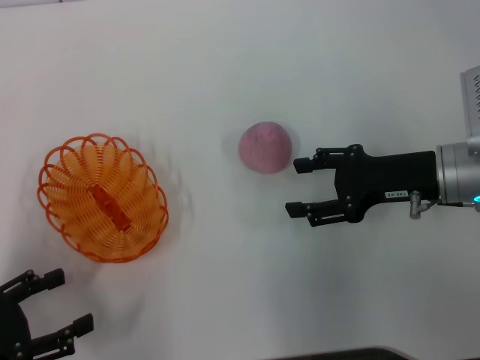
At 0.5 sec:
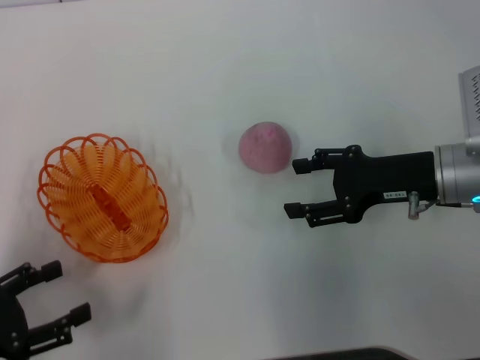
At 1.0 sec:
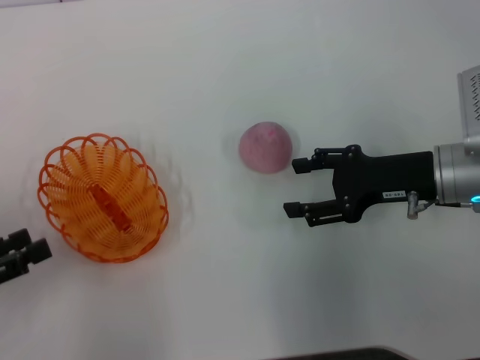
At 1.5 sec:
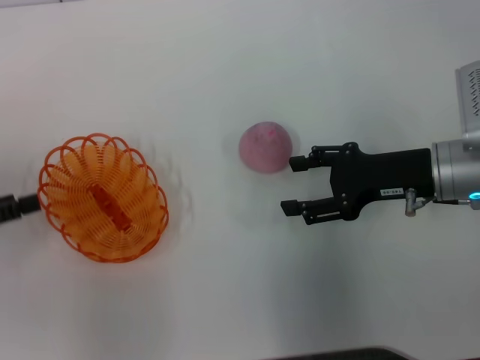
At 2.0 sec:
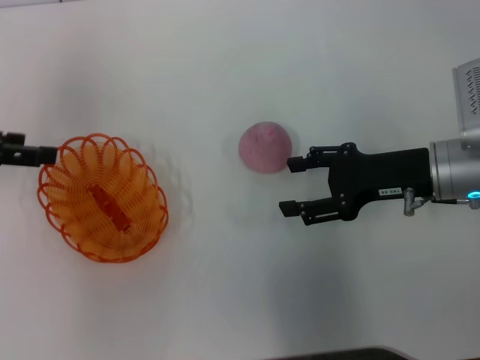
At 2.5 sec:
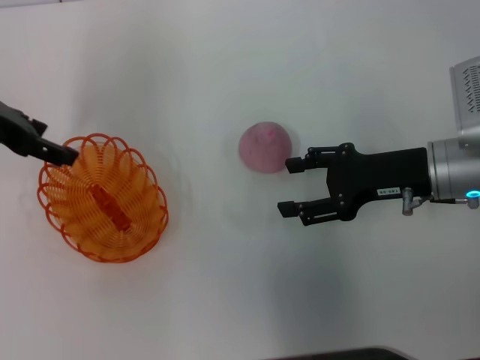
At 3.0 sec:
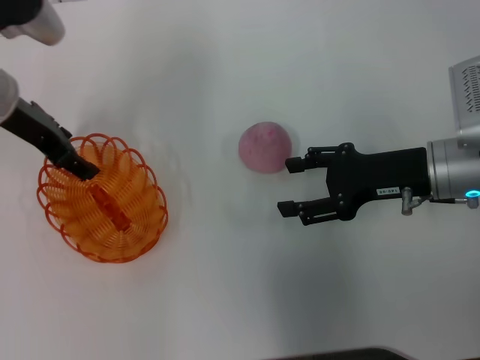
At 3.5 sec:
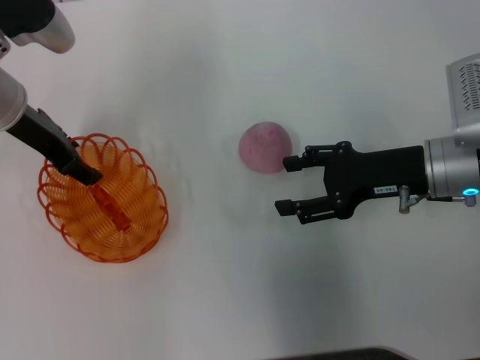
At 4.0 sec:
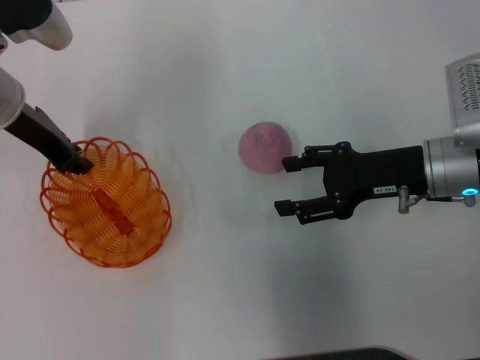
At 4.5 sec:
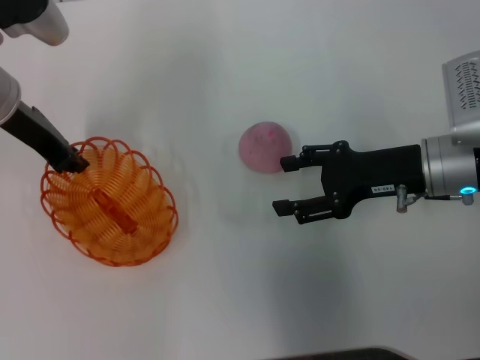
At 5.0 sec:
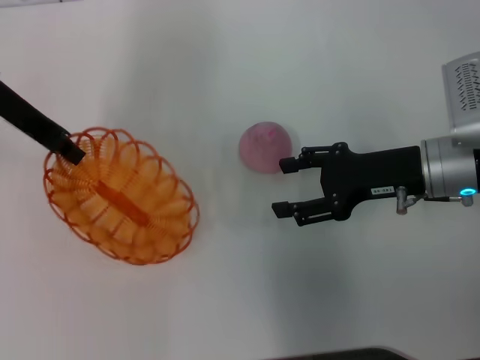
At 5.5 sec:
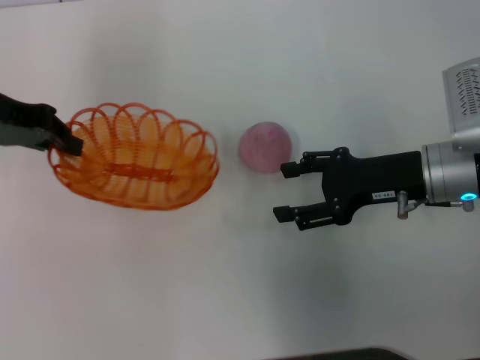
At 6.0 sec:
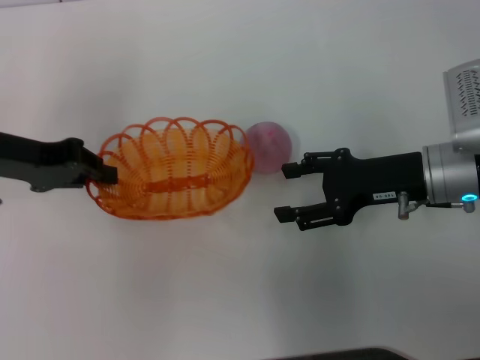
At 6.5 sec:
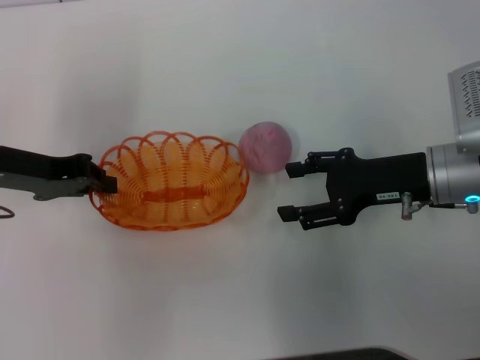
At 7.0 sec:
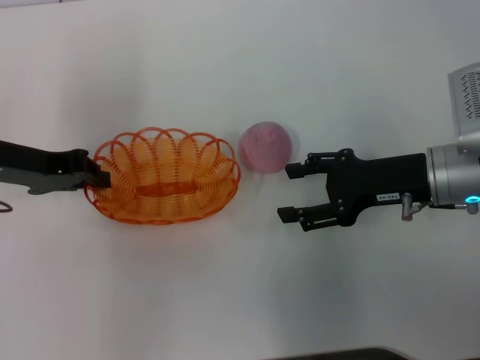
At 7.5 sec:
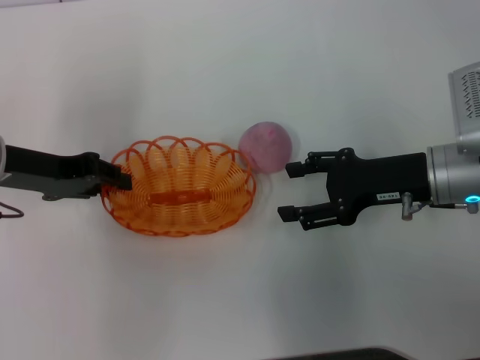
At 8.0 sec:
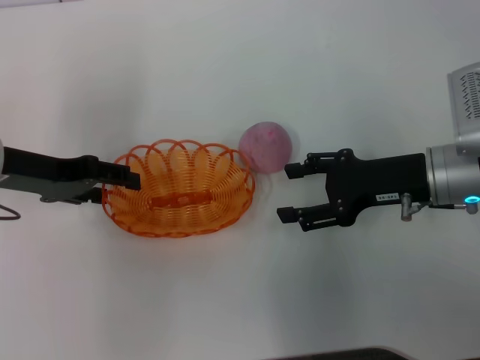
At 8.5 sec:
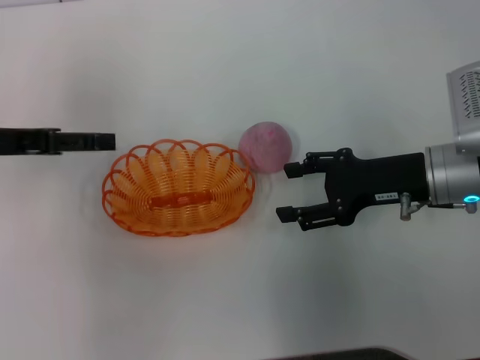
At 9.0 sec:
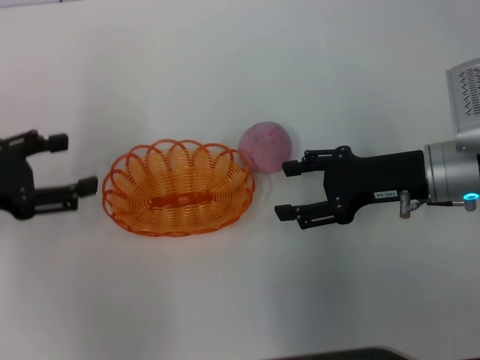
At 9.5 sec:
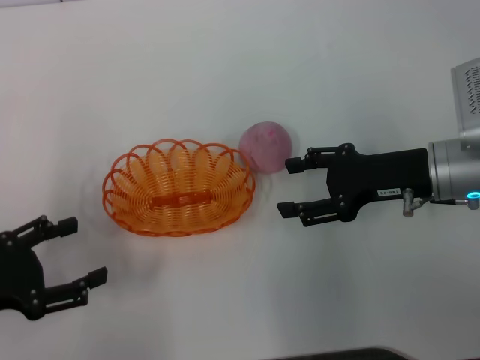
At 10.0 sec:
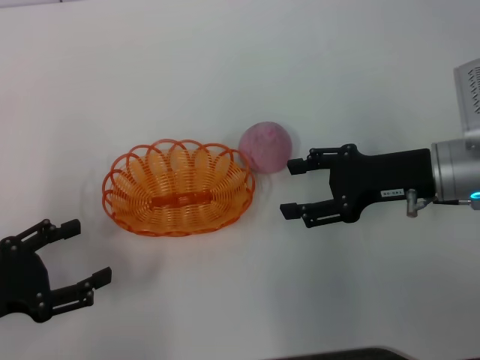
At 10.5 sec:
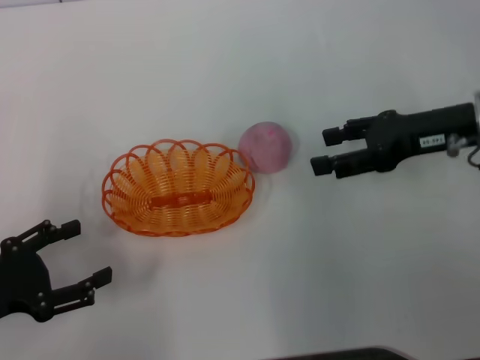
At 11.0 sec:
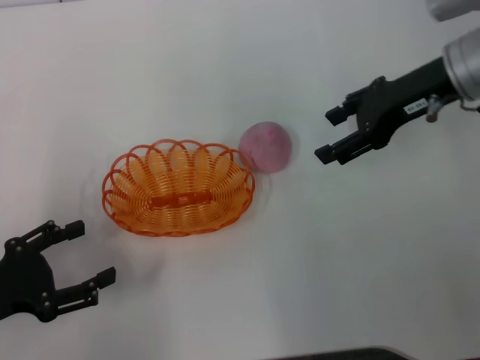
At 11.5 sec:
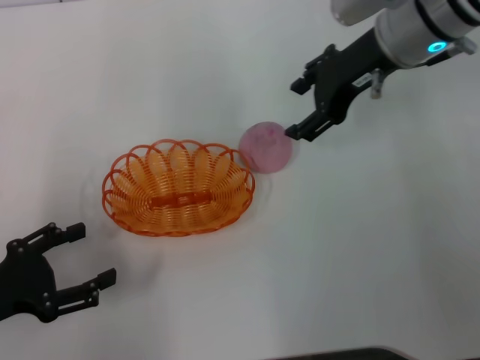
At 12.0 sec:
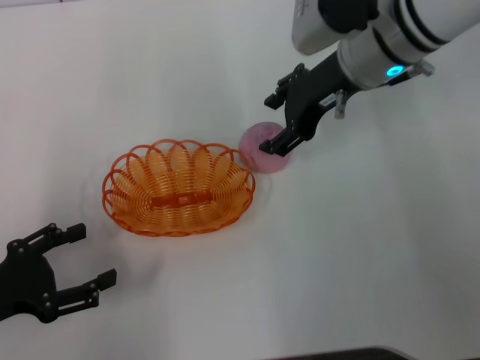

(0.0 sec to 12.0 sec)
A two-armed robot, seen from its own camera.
Step, 0.0 sec - 5.0 sec: Pick up the basket with the left gripper.
Step, 5.5 sec - 9.0 sec: Place the basket in the center of view with the left gripper.
0.0 sec - 2.0 sec: The left gripper moves forward and upward, roughly 20 cm.
2.0 sec - 4.0 sec: The left gripper travels to the right and forward by some 15 cm, and closes.
4.0 sec - 6.0 sec: The left gripper is displaced to the left and backward by roughly 5 cm.
6.0 sec - 8.0 sec: The left gripper opens its fingers.
8.0 sec - 10.0 sec: The left gripper moves backward, to the left and downward, roughly 15 cm, and opens up.
10.0 sec - 12.0 sec: The right gripper heads forward, to the left and upward, covering about 15 cm.

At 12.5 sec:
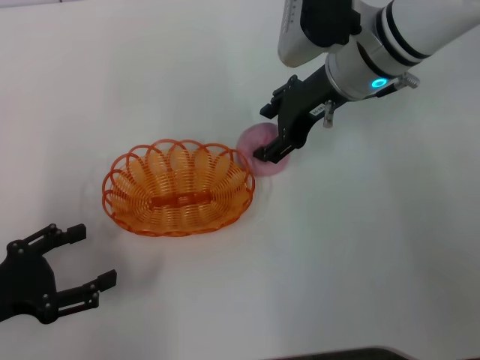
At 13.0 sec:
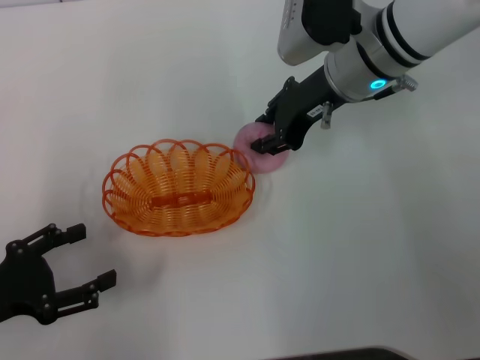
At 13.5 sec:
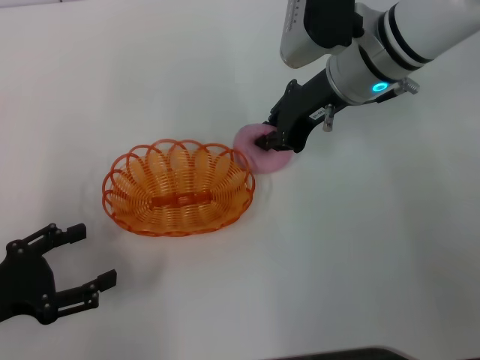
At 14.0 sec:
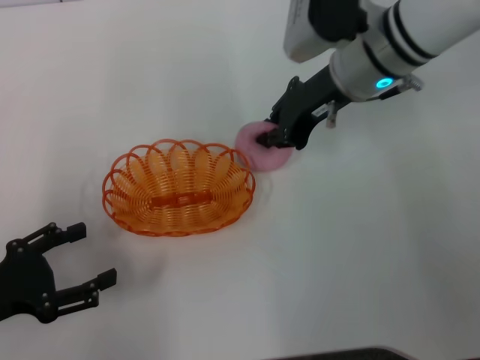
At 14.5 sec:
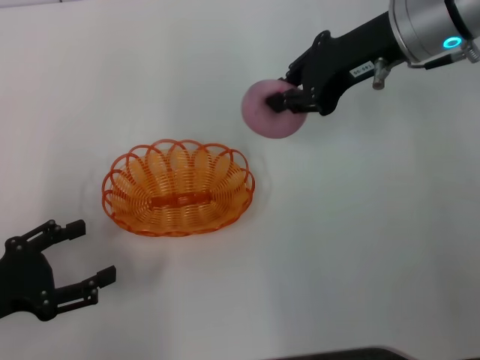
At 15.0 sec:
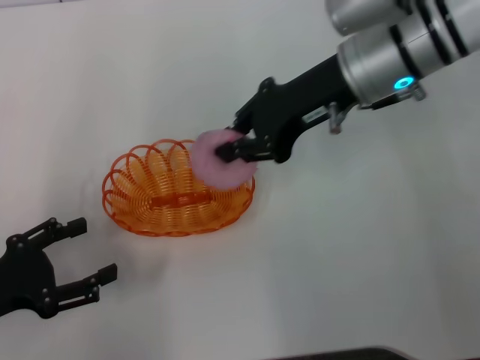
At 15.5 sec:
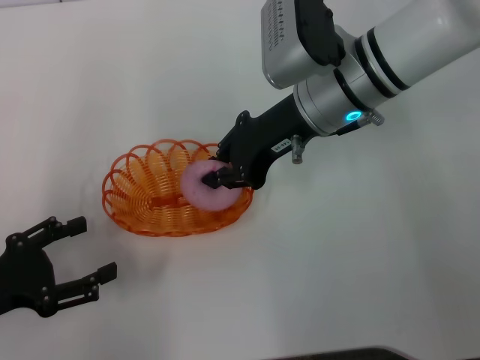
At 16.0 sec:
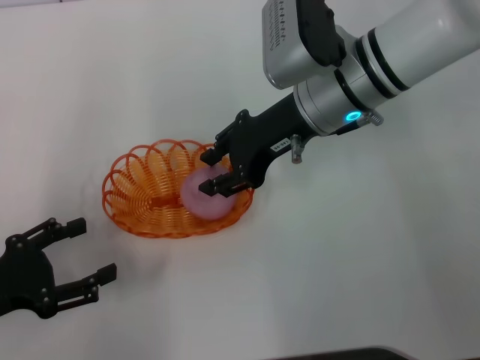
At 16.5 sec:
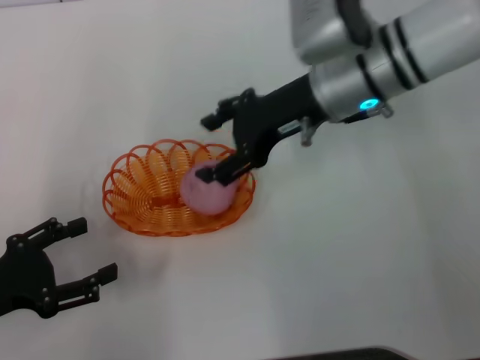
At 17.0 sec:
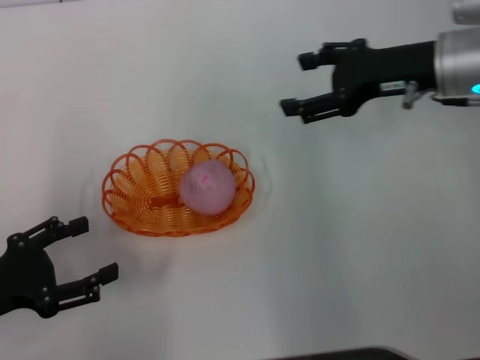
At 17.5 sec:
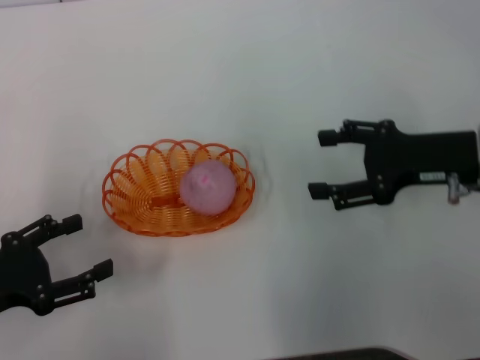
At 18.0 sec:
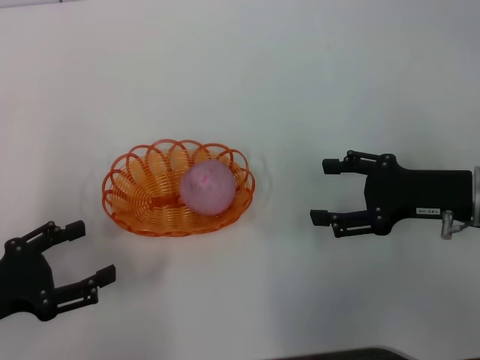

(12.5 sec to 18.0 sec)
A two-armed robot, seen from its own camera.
Step, 12.5 sec - 14.5 sec: Pick up the peach with the right gripper.
Step, 15.0 sec - 16.5 sec: Place the peach into the basket with the right gripper.
12.5 sec - 14.5 sec: The right gripper shifts roughly 5 cm upward, and closes up.
14.5 sec - 16.0 sec: The right gripper moves to the left and downward, some 10 cm.
16.0 sec - 18.0 sec: The right gripper moves to the right, backward and downward, about 20 cm, and opens its fingers.
